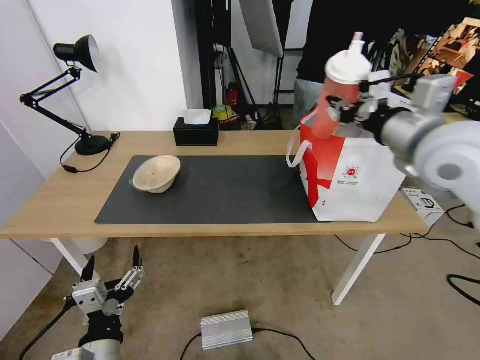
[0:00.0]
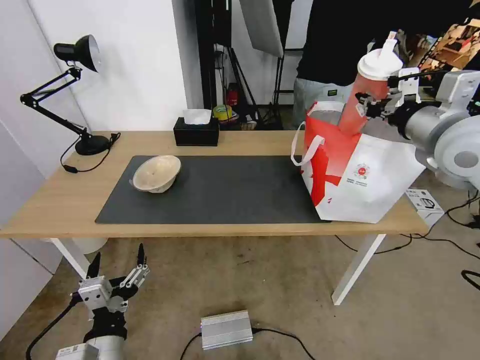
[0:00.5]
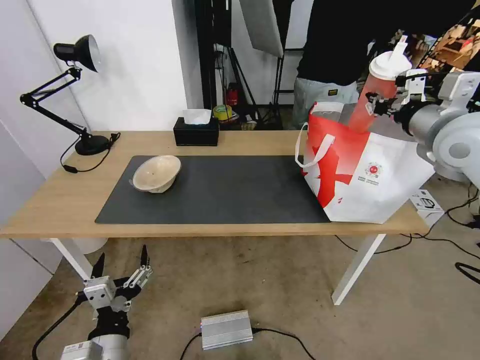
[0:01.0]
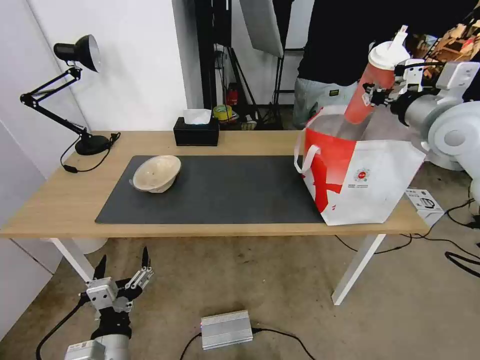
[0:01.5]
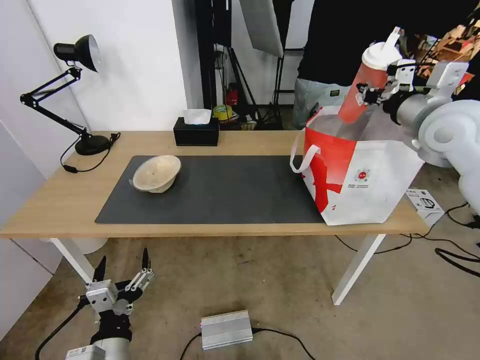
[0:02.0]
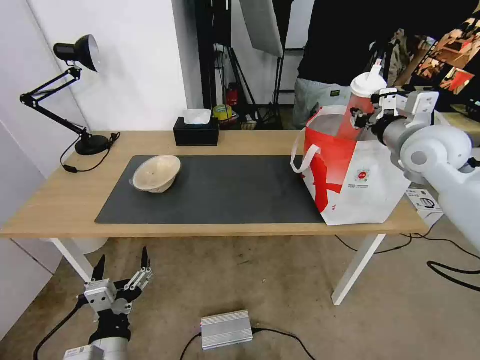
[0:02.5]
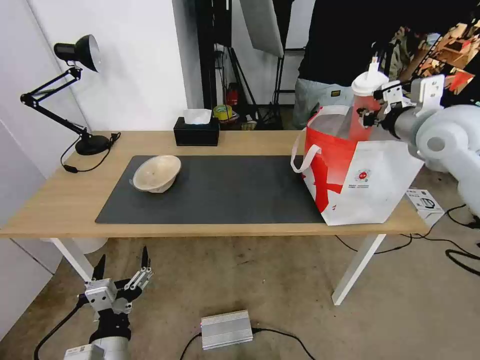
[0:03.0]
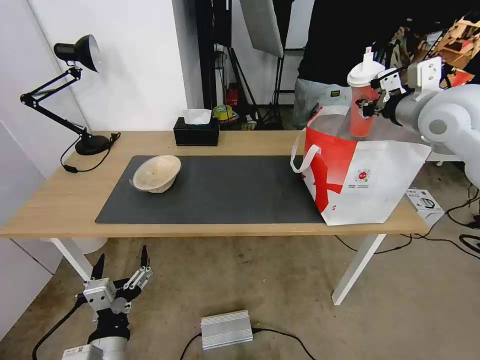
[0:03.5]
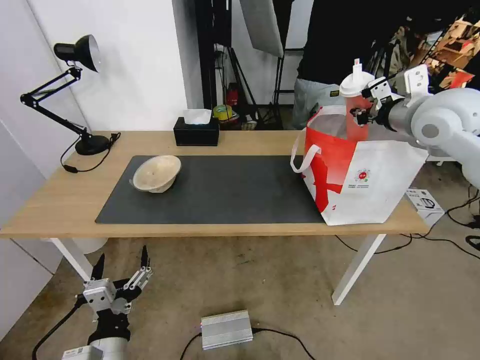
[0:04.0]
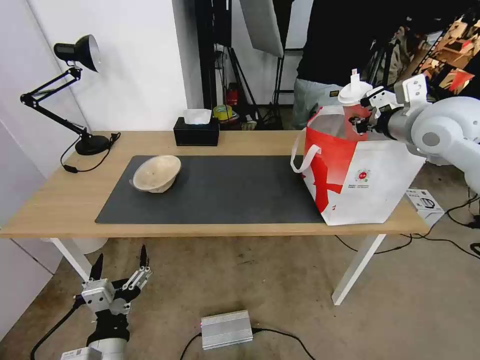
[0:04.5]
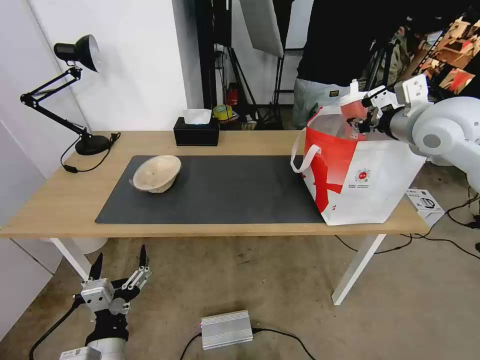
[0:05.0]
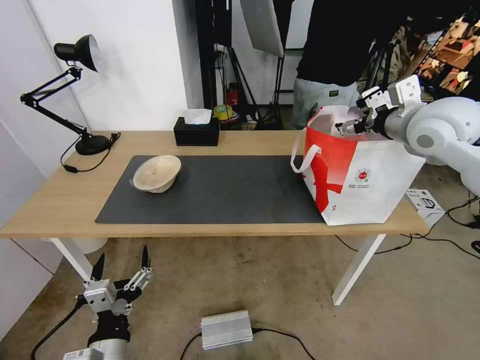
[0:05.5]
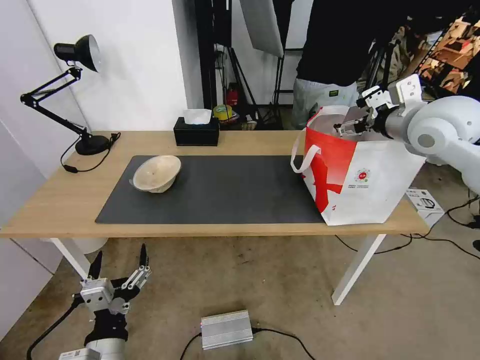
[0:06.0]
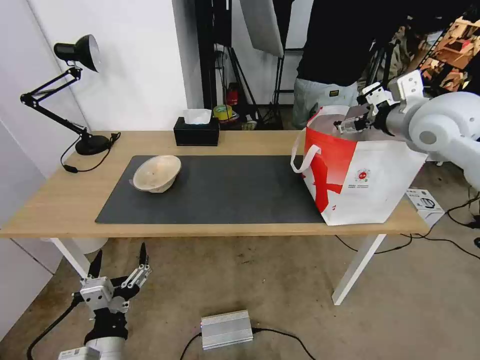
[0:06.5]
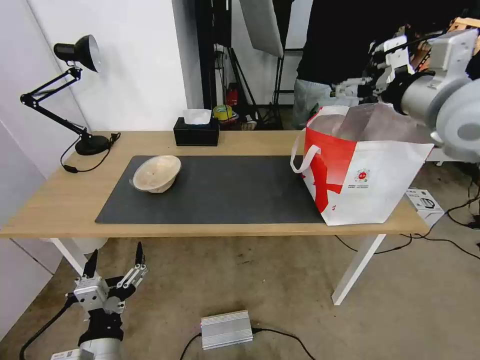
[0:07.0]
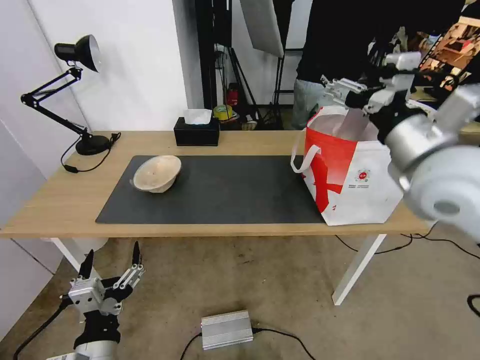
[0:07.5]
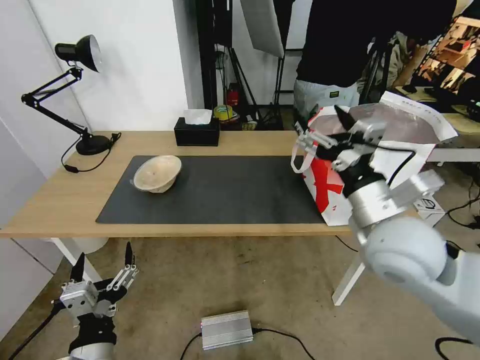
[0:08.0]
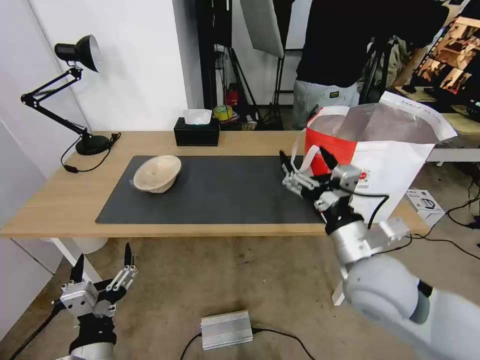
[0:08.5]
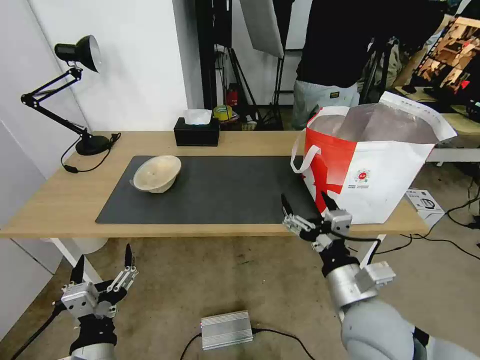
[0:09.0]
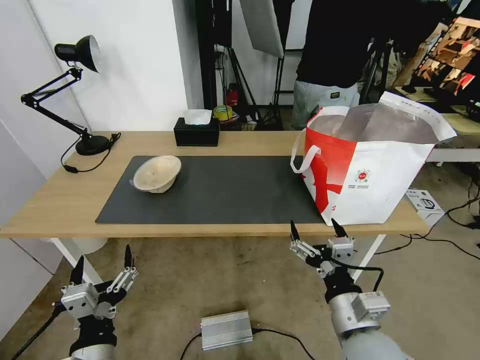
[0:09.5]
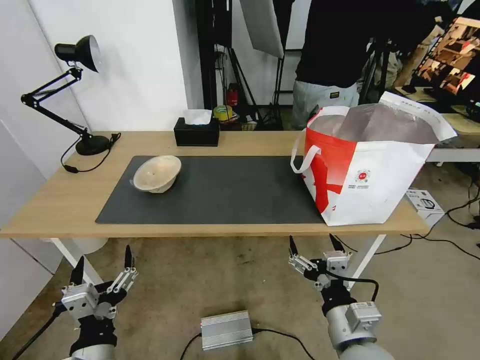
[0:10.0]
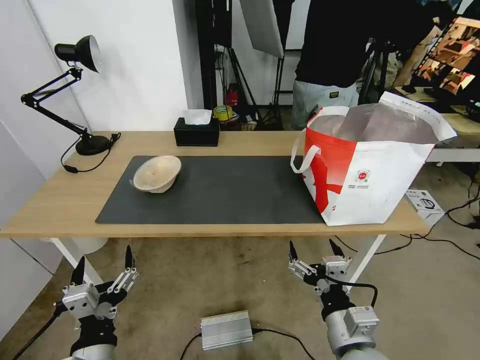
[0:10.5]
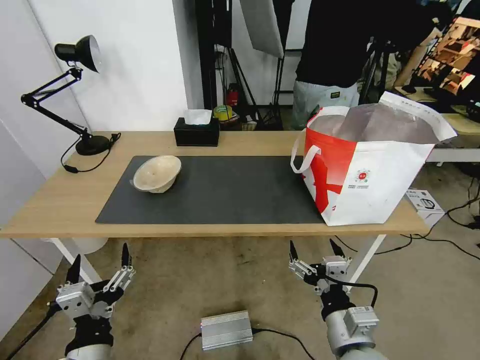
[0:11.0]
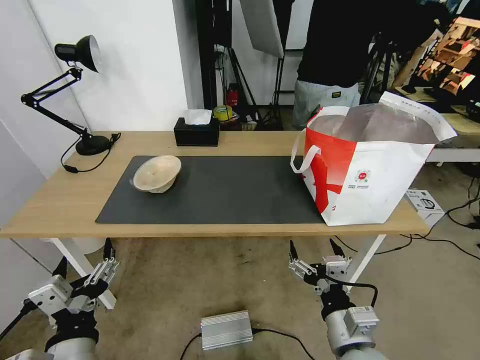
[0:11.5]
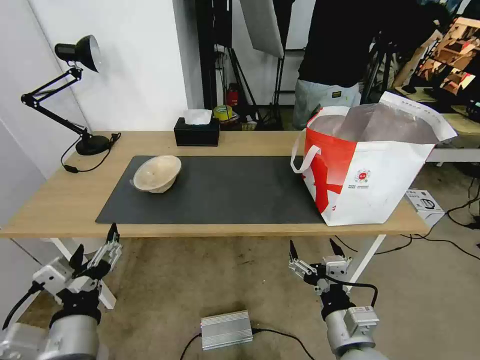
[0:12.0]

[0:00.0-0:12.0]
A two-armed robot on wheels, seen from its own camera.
Task of the whole recording: Pick up the trash from the table and place it into the takeout bag.
0:00.0 to 0:02.0: The right gripper is displaced forward and to the right by approximately 10 cm.
0:04.0 to 0:06.0: The right gripper opens.
0:06.0 to 0:08.0: The right gripper is displaced backward, downward and to the left by some 20 cm.
0:08.0 to 0:10.0: The right gripper is displaced downward and backward by approximately 20 cm.
0:10.0 to 0:12.0: The left gripper goes about 5 cm upward.

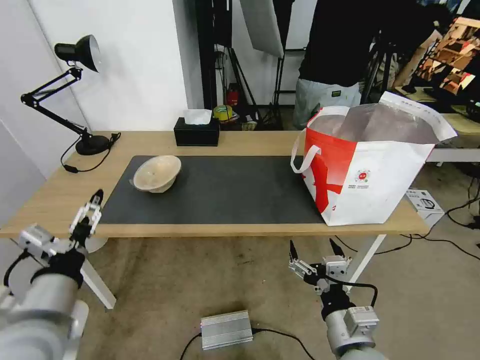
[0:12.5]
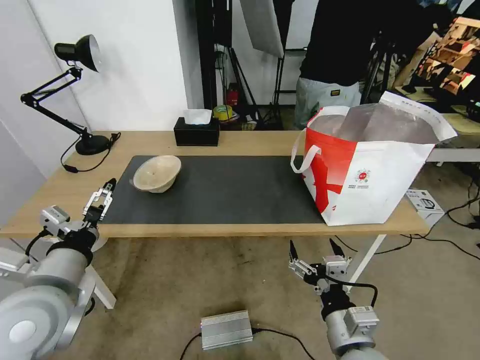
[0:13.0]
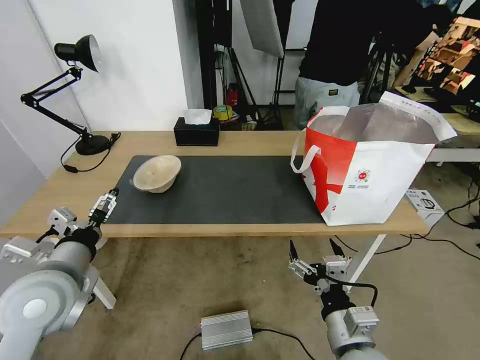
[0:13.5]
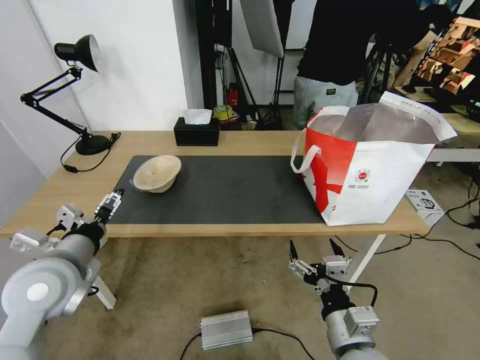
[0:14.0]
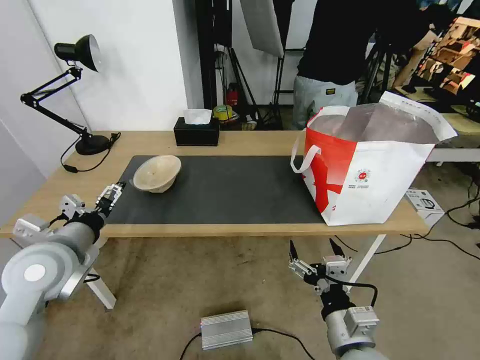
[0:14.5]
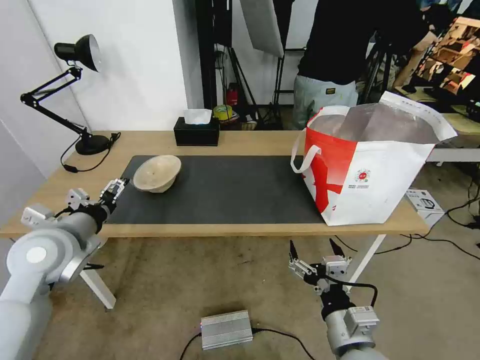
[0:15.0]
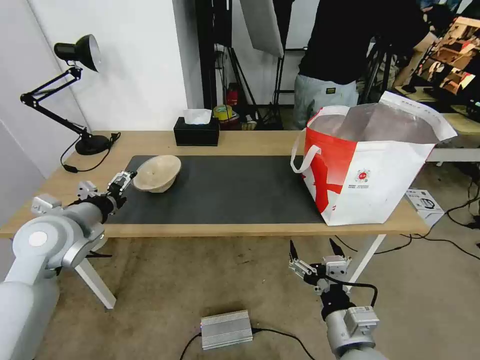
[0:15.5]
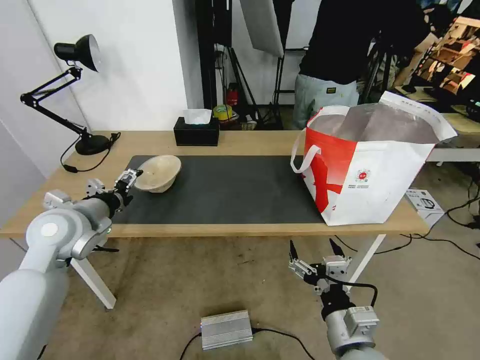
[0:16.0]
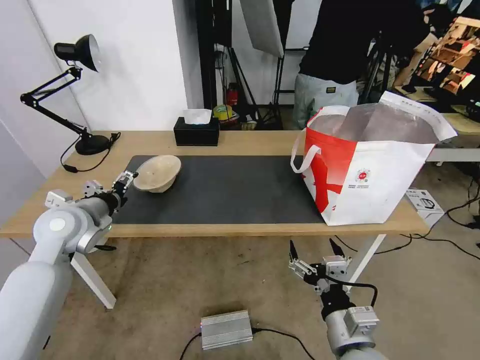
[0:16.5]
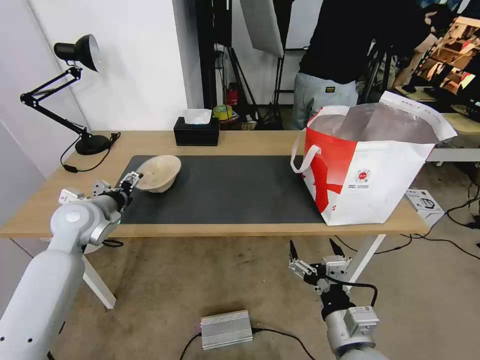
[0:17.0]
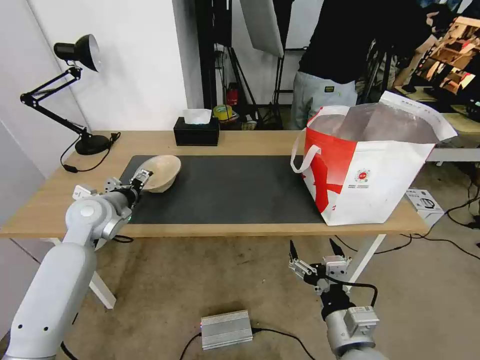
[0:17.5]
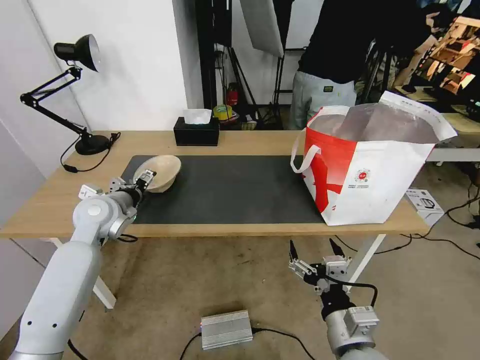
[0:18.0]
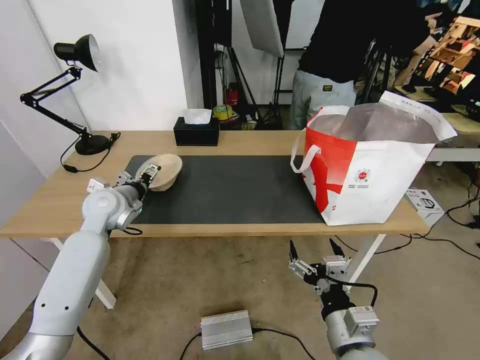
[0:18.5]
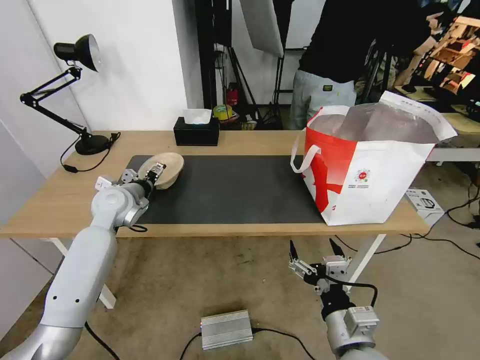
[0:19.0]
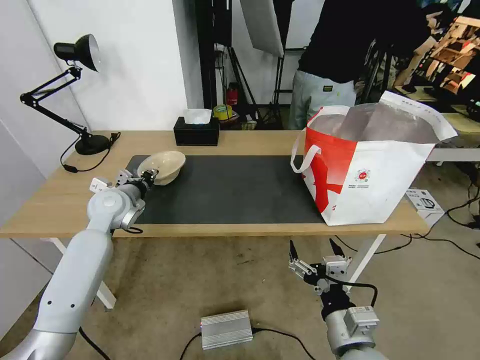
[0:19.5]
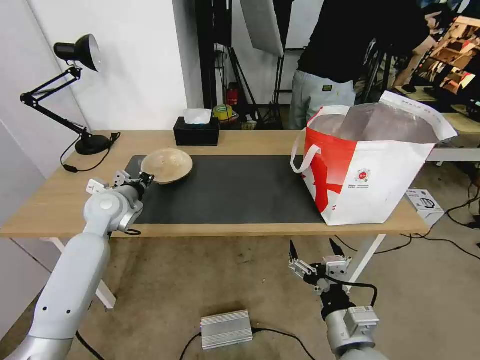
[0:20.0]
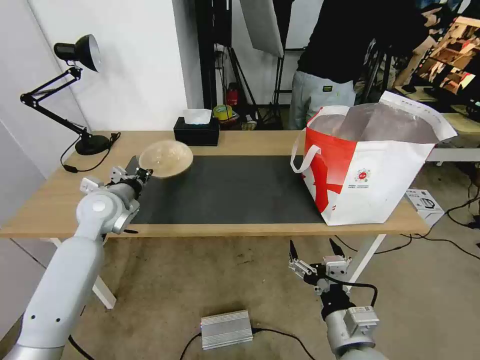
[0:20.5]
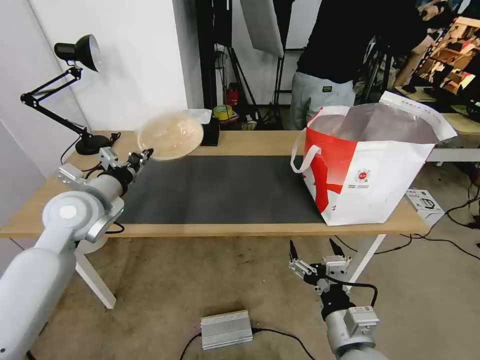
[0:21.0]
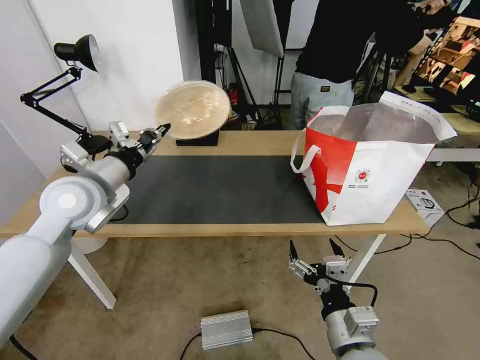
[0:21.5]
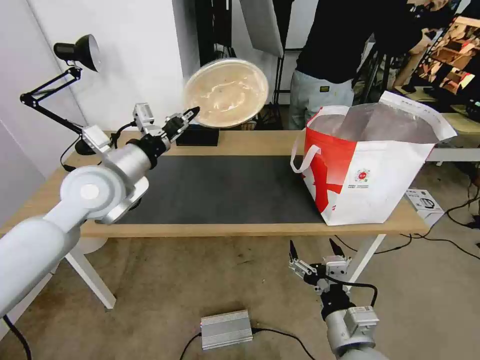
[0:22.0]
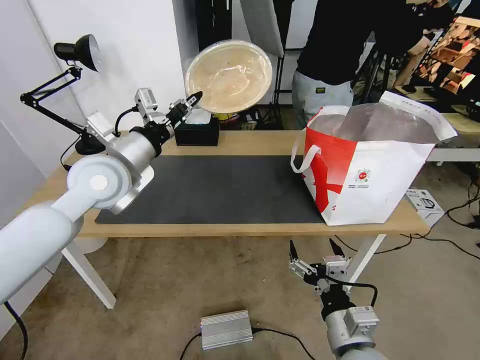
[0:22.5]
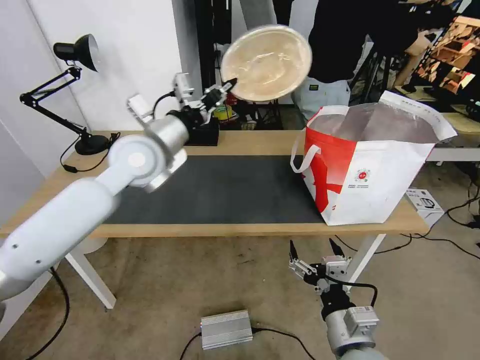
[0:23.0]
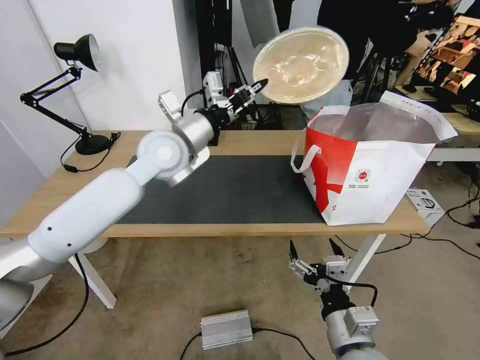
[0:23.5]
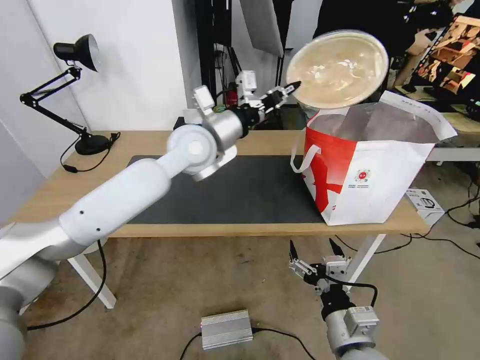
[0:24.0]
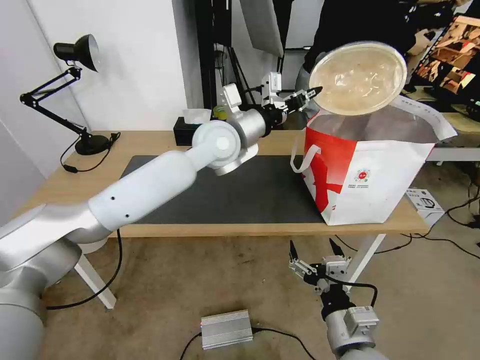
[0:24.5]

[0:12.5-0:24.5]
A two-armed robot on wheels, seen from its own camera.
Task of the whole recording: Pick up the trash from the table and place it into the takeout bag.
0:12.5 to 0:14.5: The left gripper goes roughly 10 cm forward.
0:14.5 to 0:16.5: The left gripper heads forward, covering approximately 10 cm.
0:16.5 to 0:18.5: The left gripper heads forward, covering about 10 cm.
0:18.5 to 0:20.5: The left gripper closes its fingers.
0:20.5 to 0:22.5: The left gripper travels upward and to the right by some 15 cm.
0:22.5 to 0:24.5: The left gripper shifts about 20 cm to the right and forward.

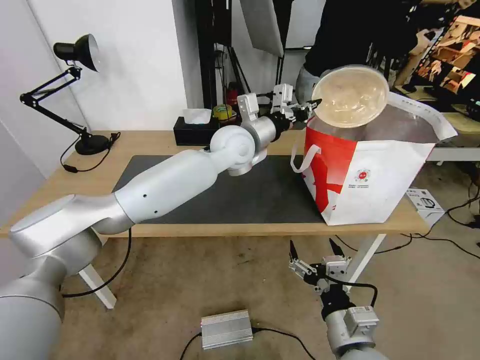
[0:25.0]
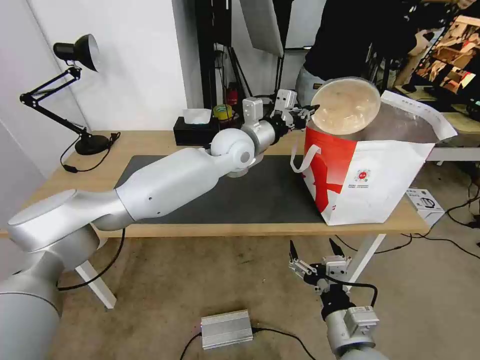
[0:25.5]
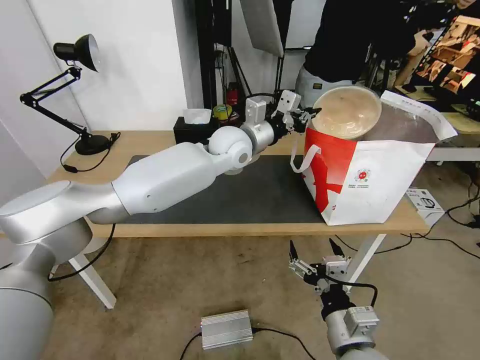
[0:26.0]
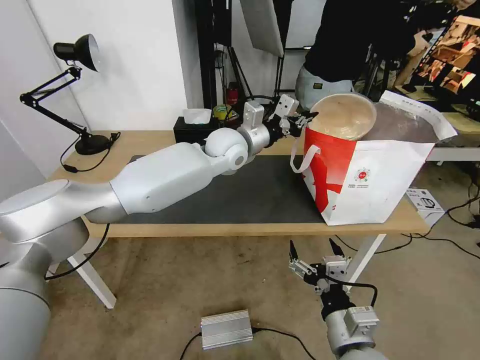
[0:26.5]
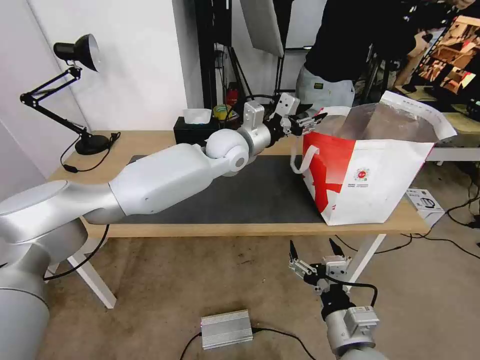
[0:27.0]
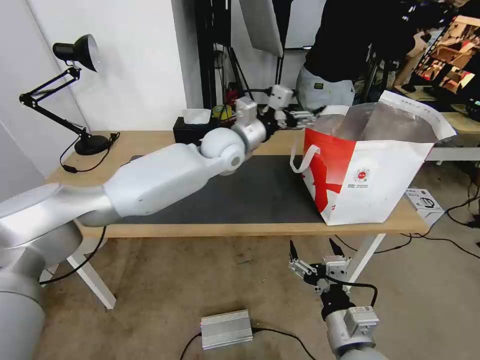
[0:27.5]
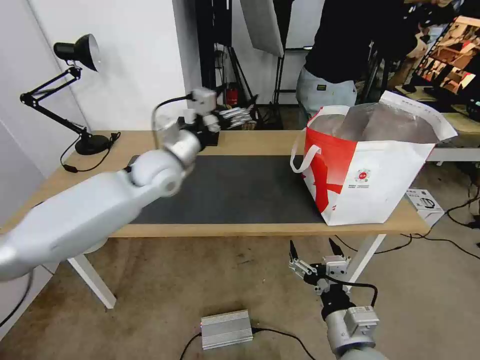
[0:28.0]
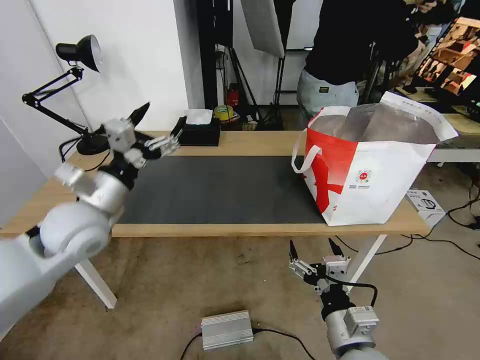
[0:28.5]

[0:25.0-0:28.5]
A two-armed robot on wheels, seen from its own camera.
Task of the whole recording: Pick up the trash from the table and place it into the takeout bag.
0:25.0 to 0:27.0: The left gripper opens up.
0:27.0 to 0:28.5: The left gripper is displaced to the left and backward by approximately 30 cm, and opens its fingers.
